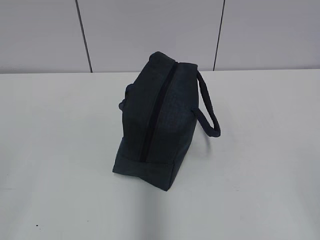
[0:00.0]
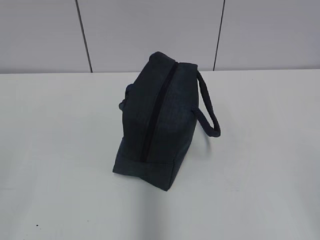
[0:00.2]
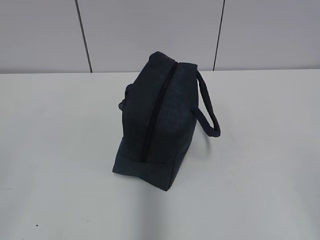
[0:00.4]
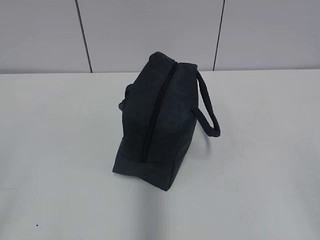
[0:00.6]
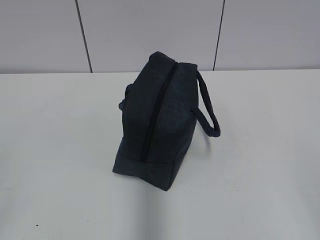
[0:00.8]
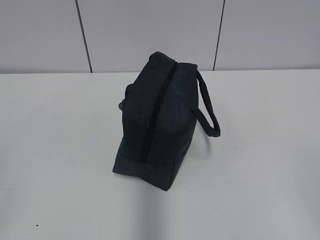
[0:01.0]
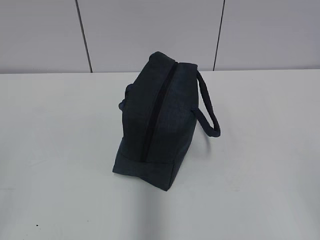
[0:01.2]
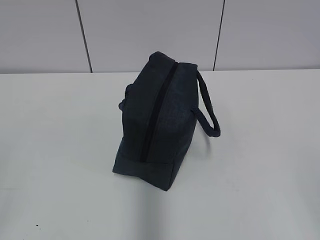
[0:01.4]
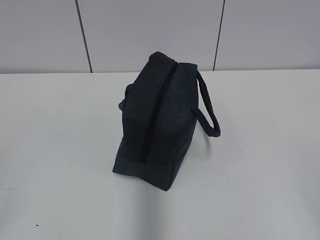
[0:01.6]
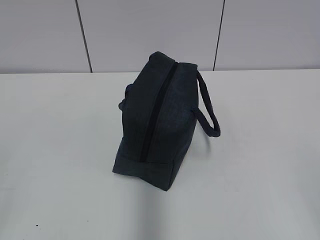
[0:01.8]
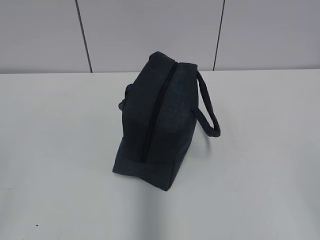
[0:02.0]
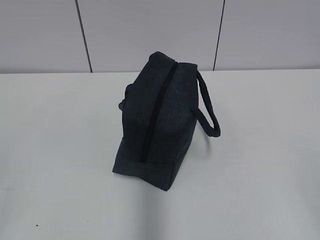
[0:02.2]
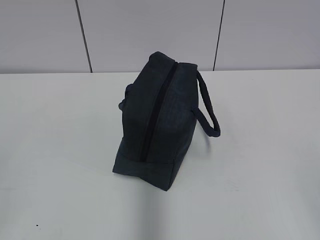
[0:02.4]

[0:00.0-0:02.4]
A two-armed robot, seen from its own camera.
0:01.2 to 0:02.4: Neither gripper changes place.
